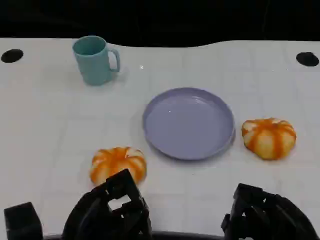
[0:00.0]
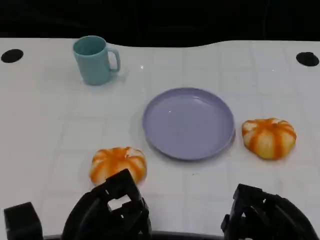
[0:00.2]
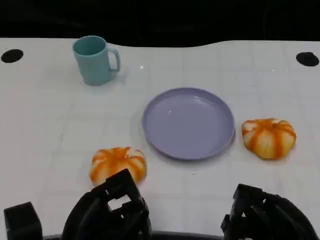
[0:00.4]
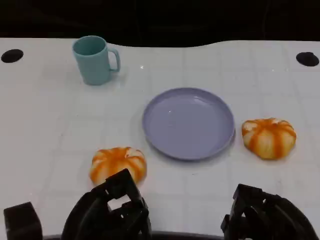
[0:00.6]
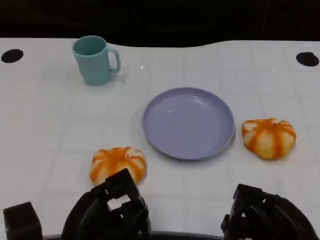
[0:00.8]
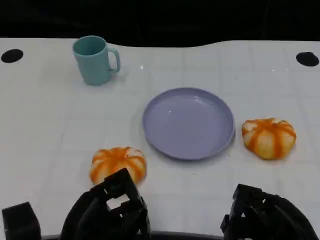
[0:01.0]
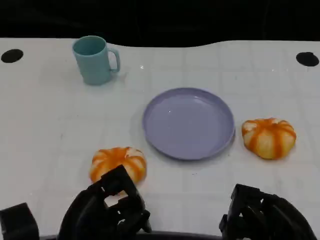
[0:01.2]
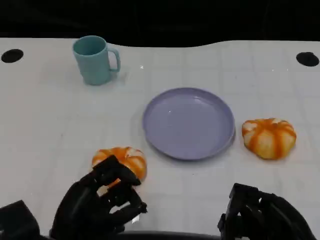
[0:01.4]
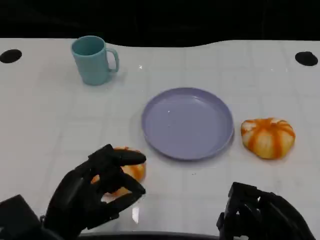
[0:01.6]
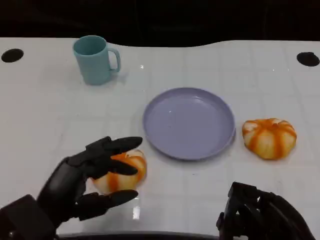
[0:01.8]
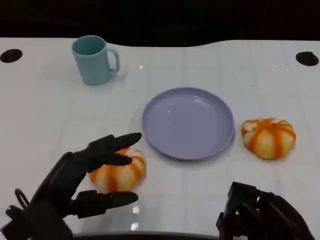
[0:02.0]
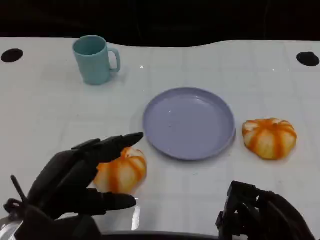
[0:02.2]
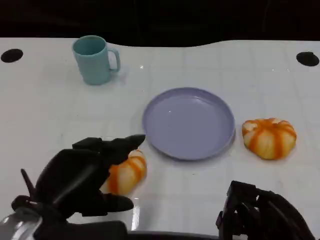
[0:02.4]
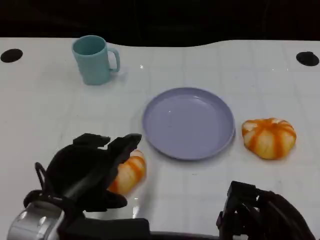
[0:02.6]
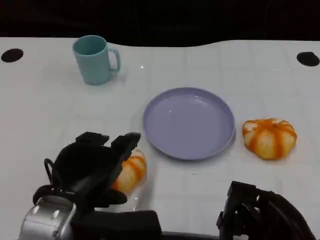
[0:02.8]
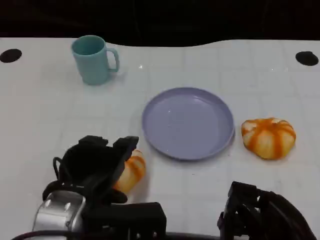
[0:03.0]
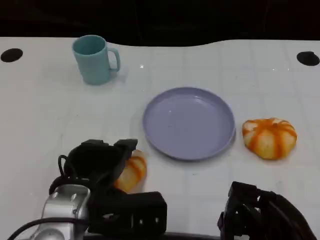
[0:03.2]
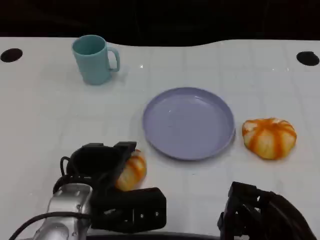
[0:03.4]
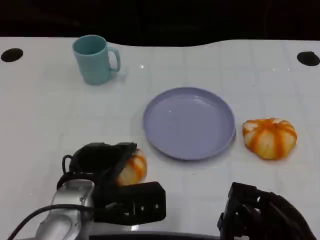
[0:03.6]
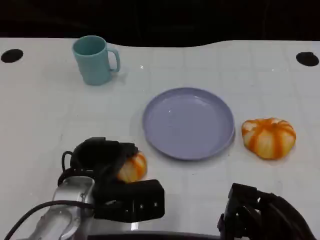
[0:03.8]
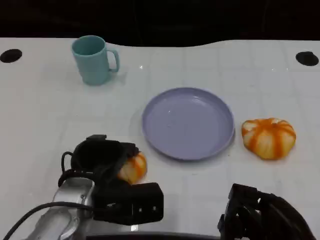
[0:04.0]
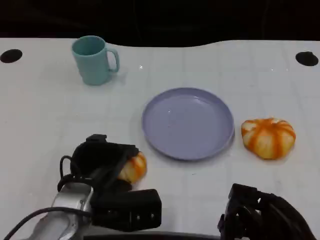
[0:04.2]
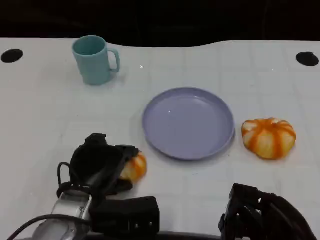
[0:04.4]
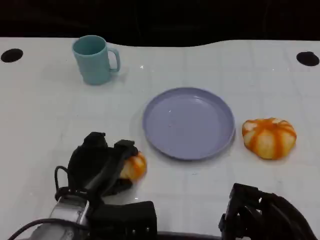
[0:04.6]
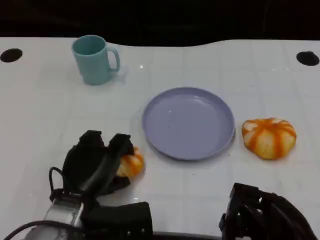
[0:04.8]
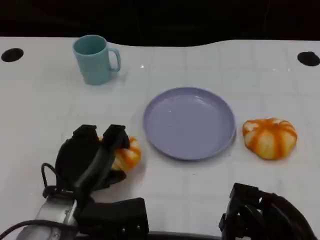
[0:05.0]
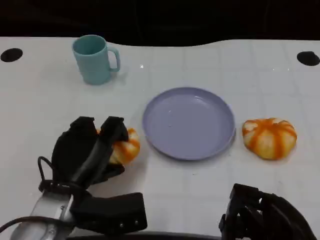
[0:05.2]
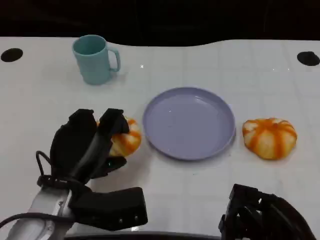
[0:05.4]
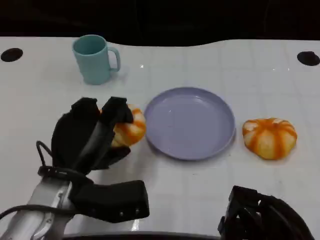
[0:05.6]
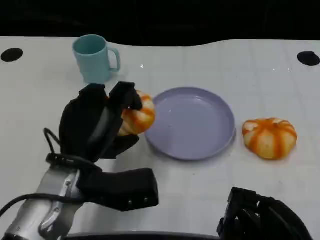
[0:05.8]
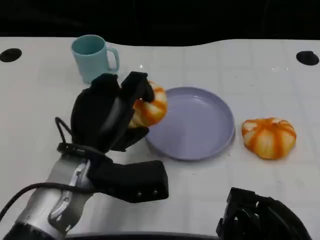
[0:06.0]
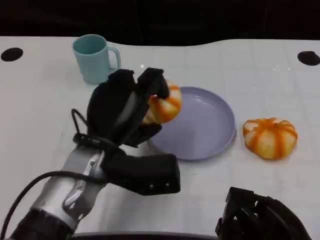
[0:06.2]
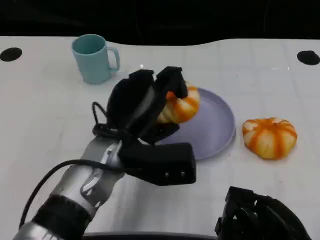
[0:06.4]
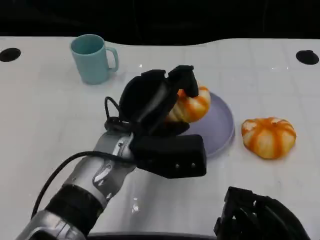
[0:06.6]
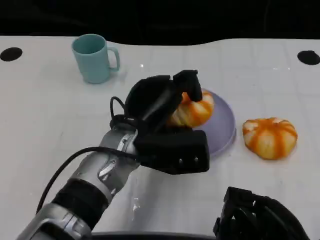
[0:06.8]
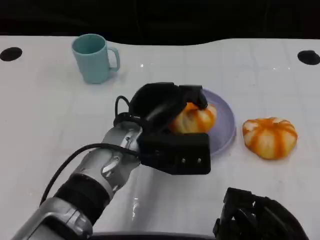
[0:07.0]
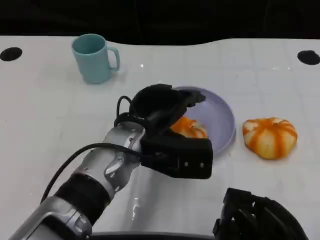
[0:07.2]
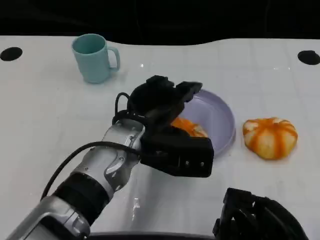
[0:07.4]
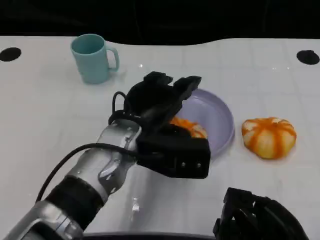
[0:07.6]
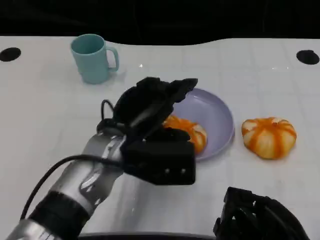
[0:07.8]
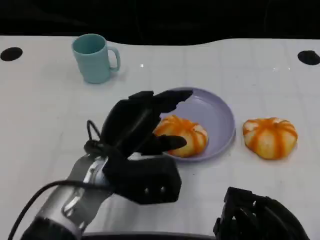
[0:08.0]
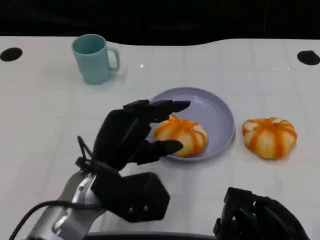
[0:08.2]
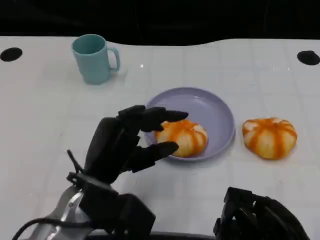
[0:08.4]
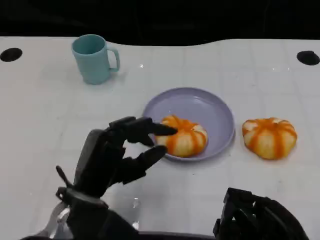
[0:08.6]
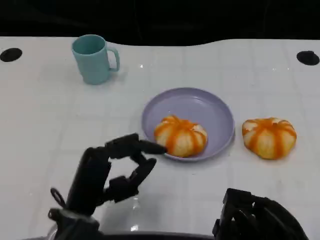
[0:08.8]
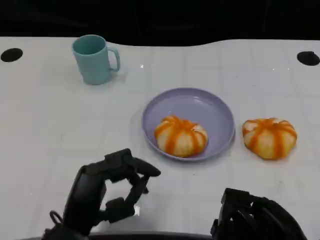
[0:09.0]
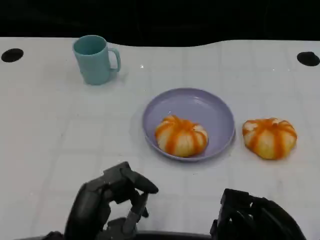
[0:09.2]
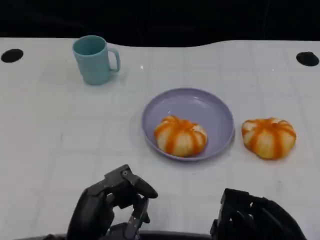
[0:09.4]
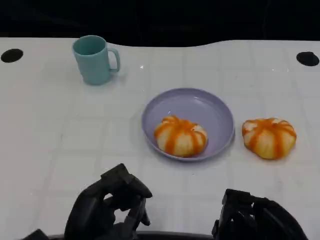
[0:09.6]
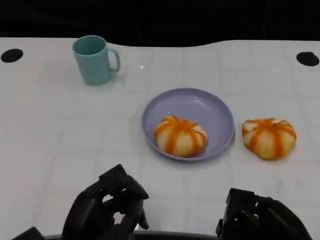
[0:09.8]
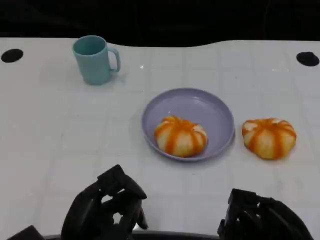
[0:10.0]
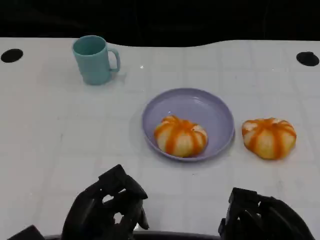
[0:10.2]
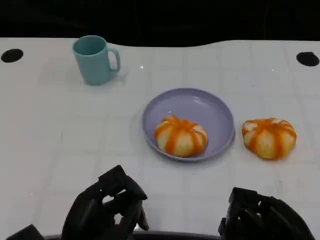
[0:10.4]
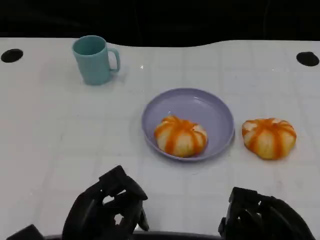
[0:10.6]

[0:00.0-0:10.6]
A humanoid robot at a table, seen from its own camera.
Task of the whole recording: Grasp the bread from the table and place it into the plate.
0:01.6 to 0:03.0: The left hand changes place by roughly 5 cm.
0:03.0 to 0:04.6: The left hand goes roughly 5 cm downward.
0:04.6 to 0:06.0: The left hand travels upward by approximately 10 cm.
0:06.0 to 0:07.6: The left hand is displaced to the right by approximately 5 cm.
0:07.6 to 0:09.0: The left hand is displaced backward, to the left and downward by some 15 cm.

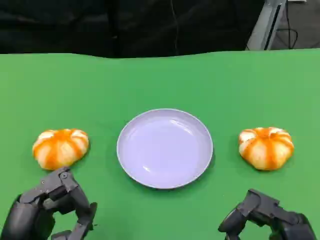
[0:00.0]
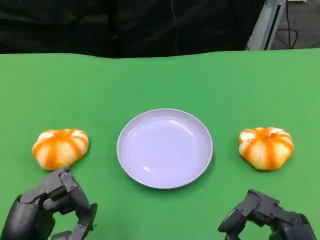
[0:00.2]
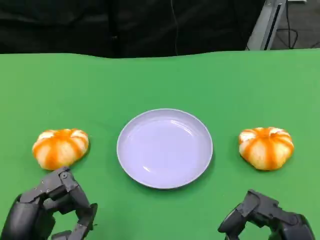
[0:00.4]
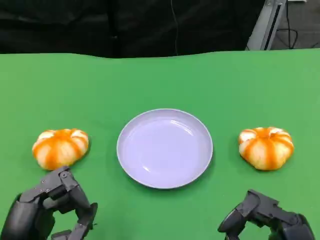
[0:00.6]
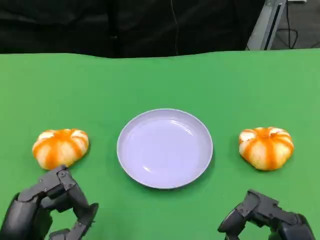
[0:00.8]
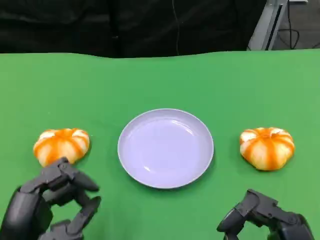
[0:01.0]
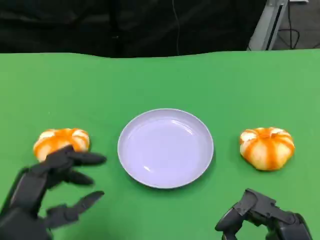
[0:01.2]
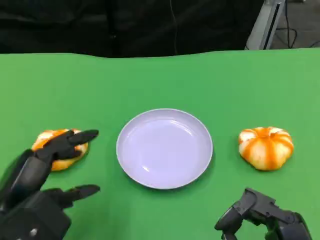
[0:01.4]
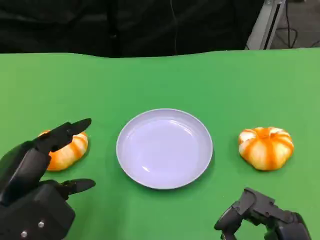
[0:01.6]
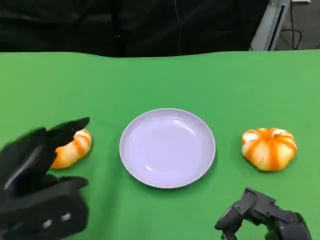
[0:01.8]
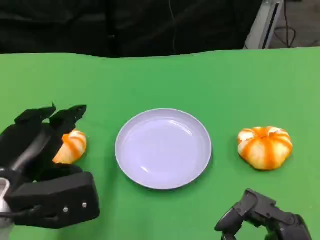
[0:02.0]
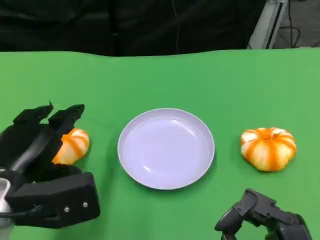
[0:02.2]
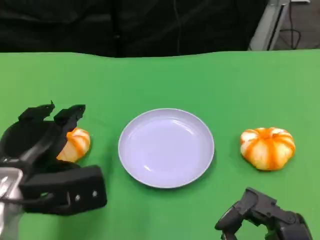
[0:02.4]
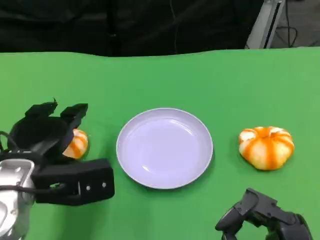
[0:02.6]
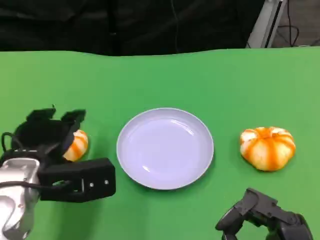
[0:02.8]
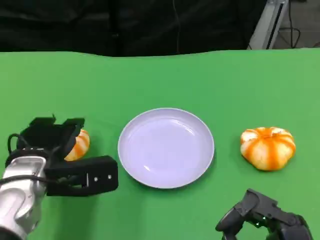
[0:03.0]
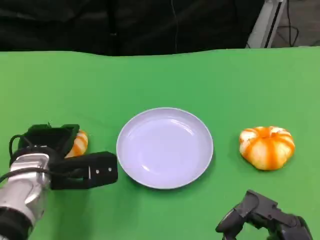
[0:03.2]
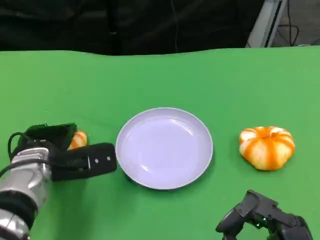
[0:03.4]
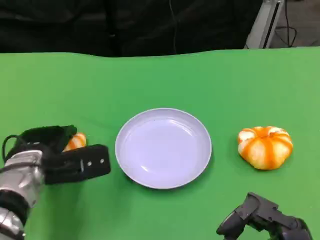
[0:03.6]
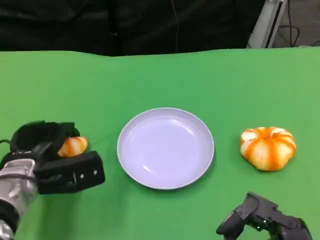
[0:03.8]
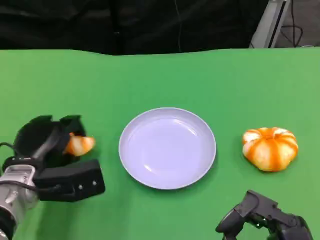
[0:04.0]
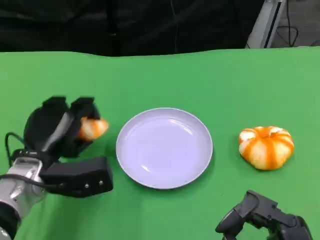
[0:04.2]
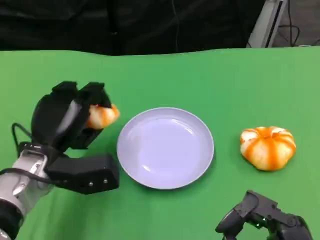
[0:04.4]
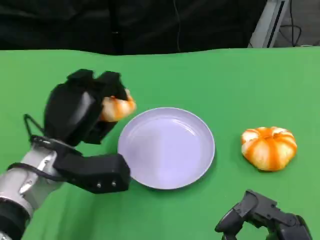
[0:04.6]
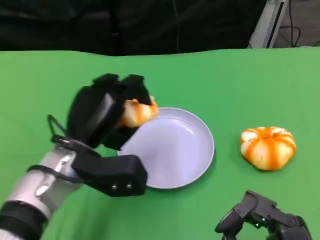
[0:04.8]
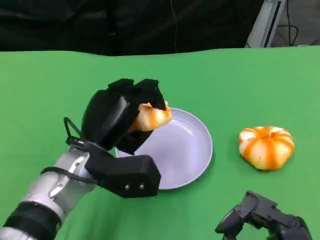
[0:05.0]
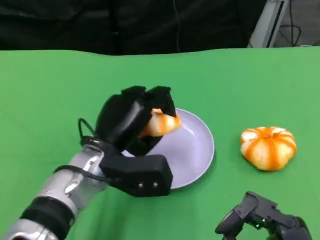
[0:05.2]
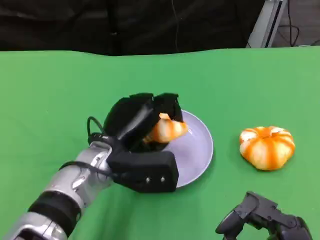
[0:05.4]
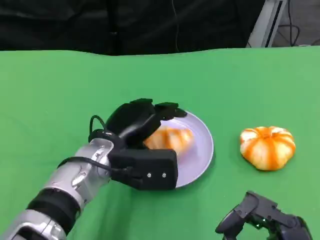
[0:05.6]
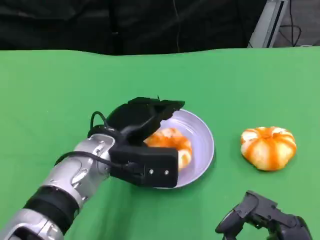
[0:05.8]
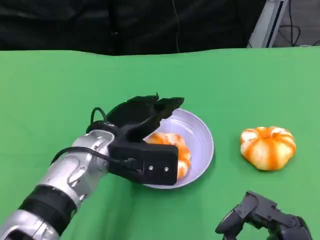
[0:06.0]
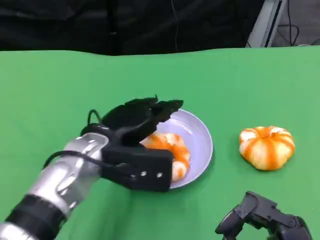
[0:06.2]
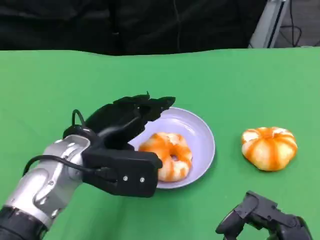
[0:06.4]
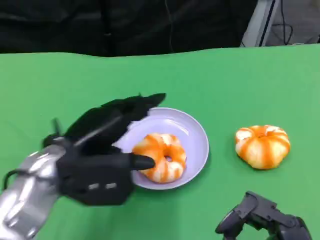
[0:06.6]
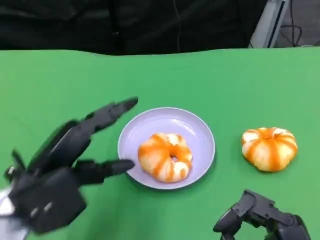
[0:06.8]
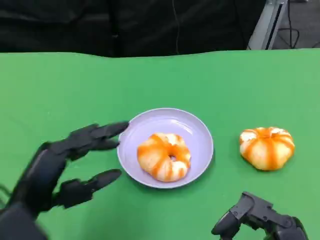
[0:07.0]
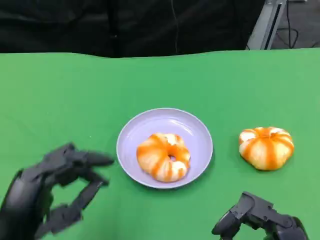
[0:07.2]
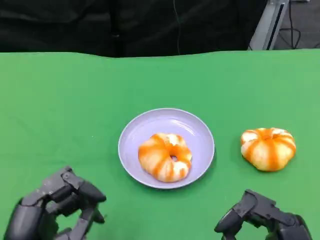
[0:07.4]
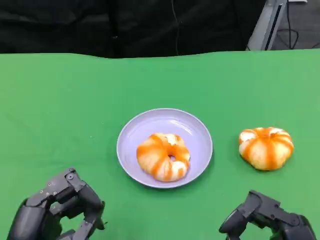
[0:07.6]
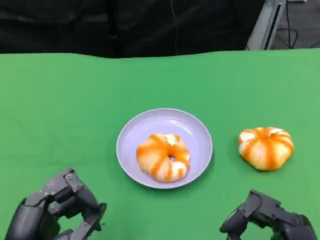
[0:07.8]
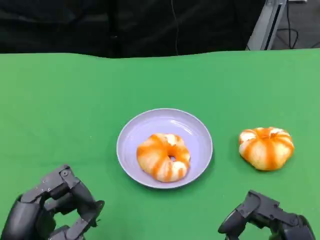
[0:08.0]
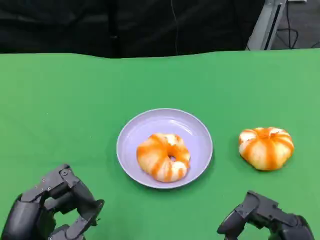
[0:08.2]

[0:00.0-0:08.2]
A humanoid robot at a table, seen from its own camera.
Task of the whole recording: Grasp the bread from the table and place it into the plate.
0:00.0 to 0:01.6: The left hand is displaced forward by approximately 5 cm.
0:01.6 to 0:03.2: The left hand heads forward and downward, covering roughly 15 cm.
0:03.2 to 0:05.0: The left hand goes some 10 cm to the right.
0:05.0 to 0:06.6: The left hand travels to the left by approximately 5 cm.
0:06.6 to 0:08.2: The left hand heads backward, covering about 15 cm.

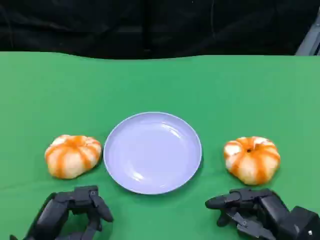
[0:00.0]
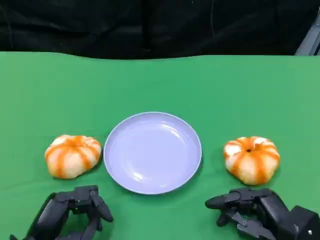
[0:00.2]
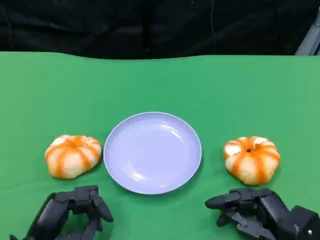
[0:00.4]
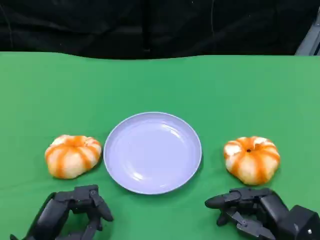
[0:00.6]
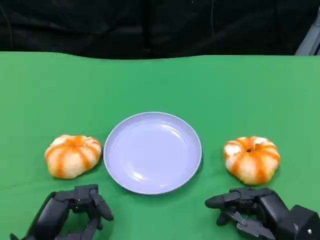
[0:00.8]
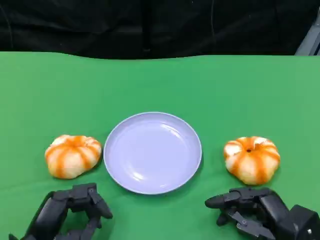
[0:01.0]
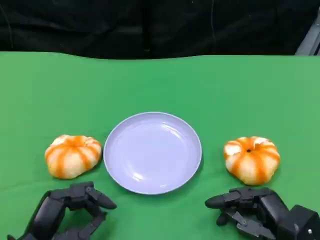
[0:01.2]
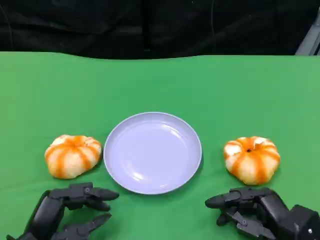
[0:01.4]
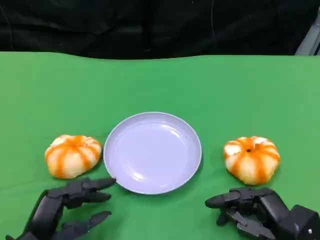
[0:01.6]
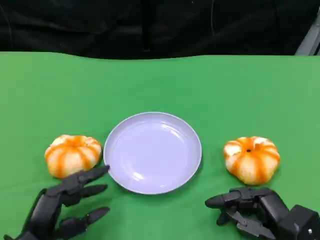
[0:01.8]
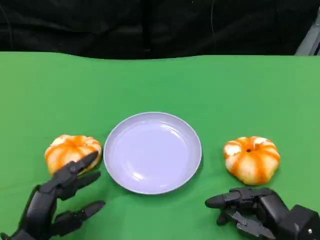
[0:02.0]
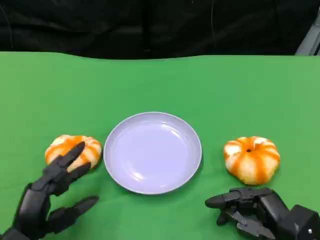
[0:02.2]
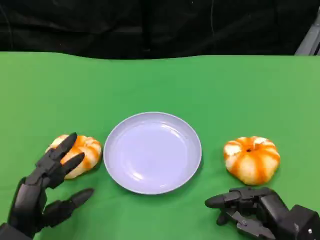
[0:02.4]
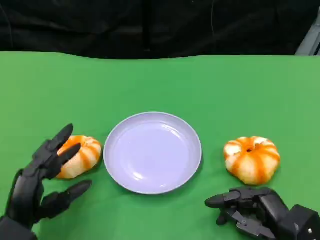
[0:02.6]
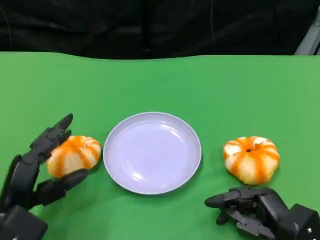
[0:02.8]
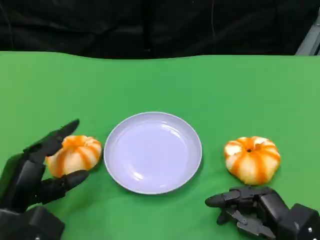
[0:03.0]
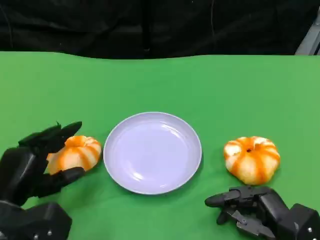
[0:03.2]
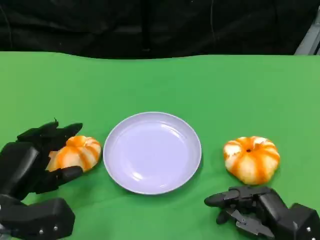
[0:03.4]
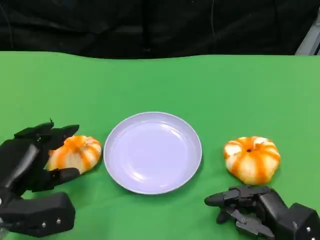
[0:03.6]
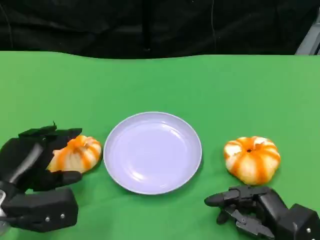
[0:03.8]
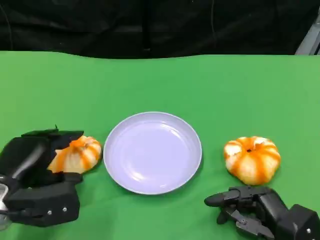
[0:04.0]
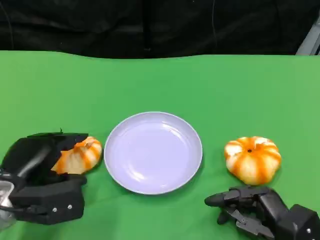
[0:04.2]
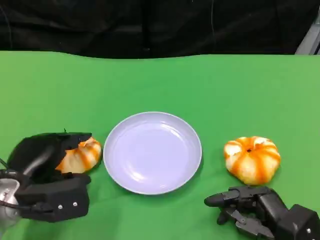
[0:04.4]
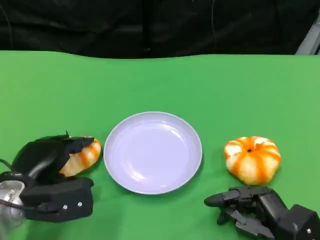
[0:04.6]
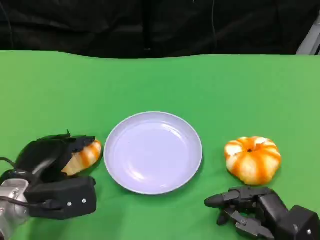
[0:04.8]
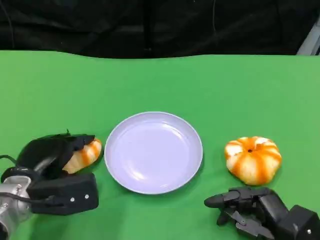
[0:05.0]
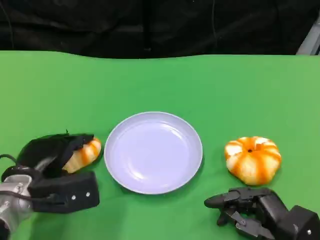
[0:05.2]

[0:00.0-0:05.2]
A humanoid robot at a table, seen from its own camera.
Task of the whole recording: Grasp the bread from the table and place it into the plate.
0:00.0 to 0:01.8: The hands stay close to where they were, moving slightly.
0:01.8 to 0:03.4: The left hand moves forward, roughly 5 cm.
